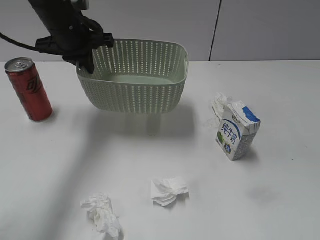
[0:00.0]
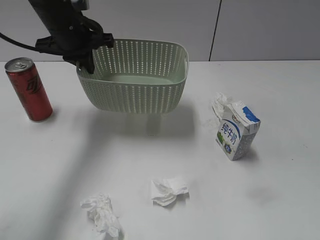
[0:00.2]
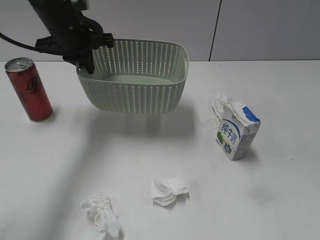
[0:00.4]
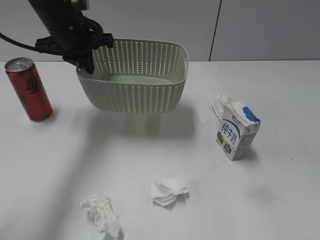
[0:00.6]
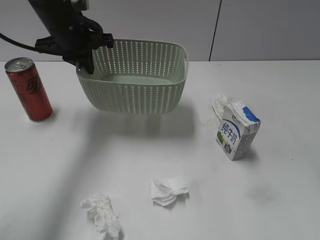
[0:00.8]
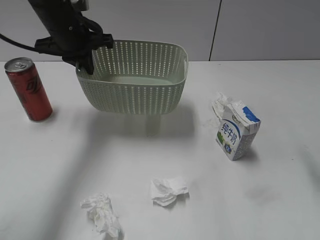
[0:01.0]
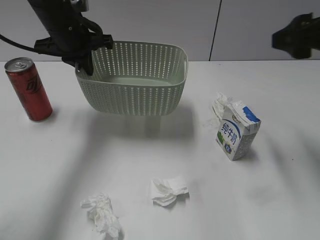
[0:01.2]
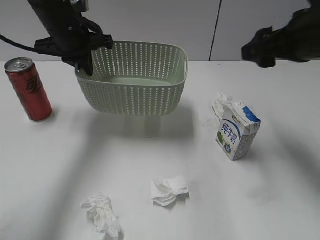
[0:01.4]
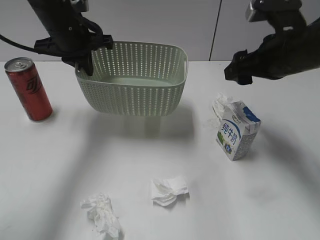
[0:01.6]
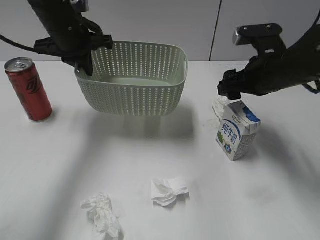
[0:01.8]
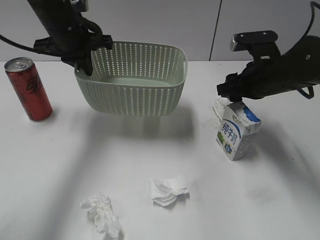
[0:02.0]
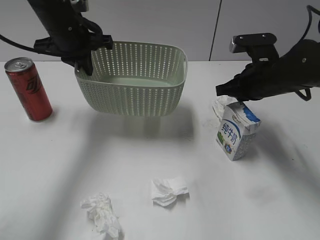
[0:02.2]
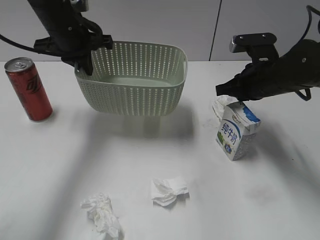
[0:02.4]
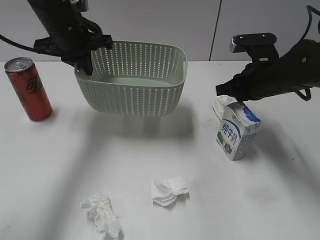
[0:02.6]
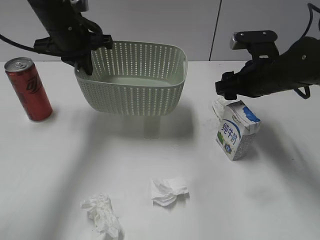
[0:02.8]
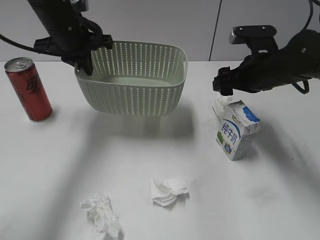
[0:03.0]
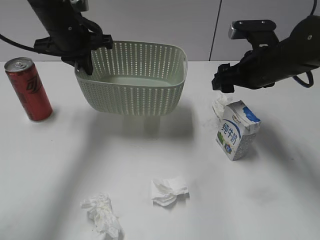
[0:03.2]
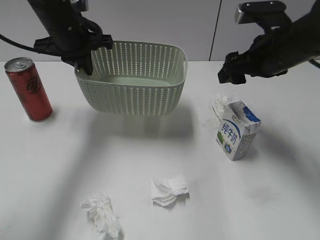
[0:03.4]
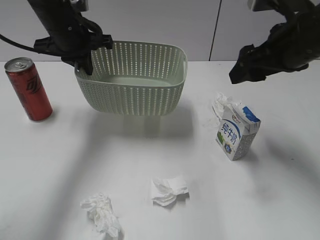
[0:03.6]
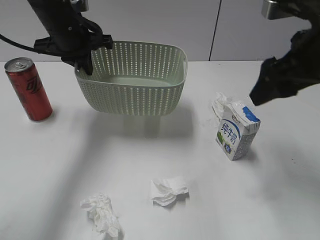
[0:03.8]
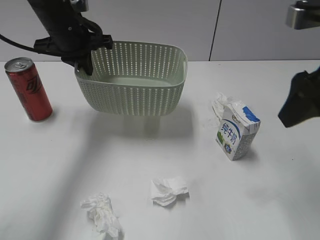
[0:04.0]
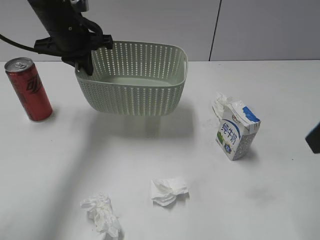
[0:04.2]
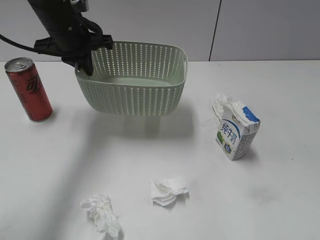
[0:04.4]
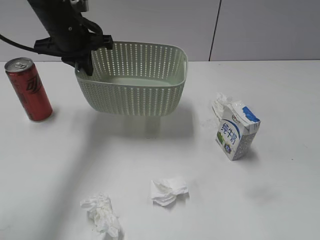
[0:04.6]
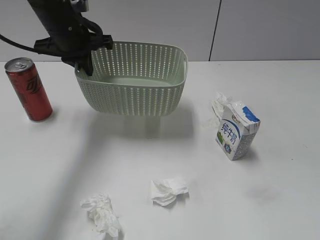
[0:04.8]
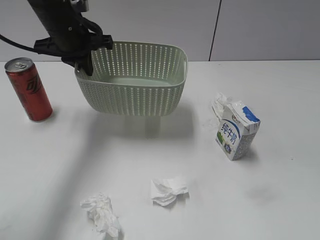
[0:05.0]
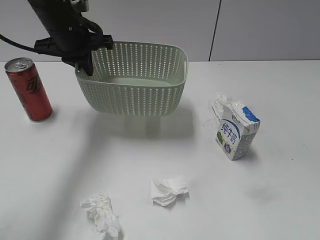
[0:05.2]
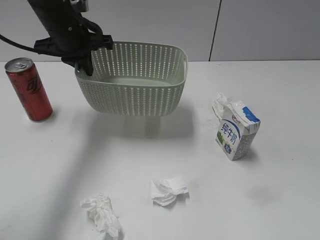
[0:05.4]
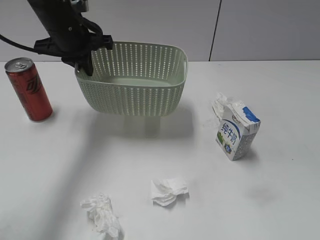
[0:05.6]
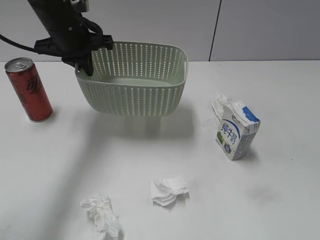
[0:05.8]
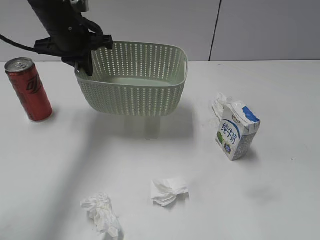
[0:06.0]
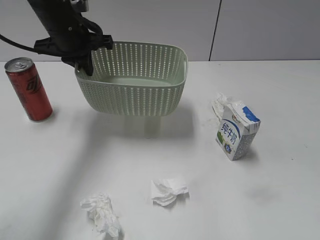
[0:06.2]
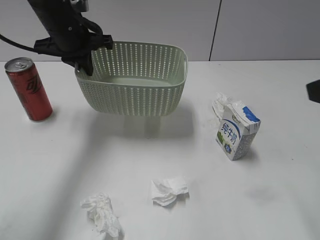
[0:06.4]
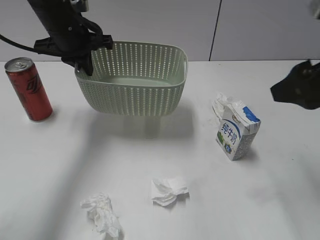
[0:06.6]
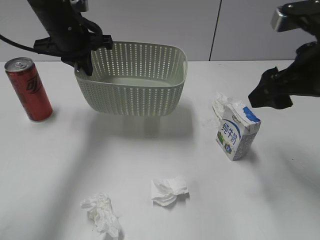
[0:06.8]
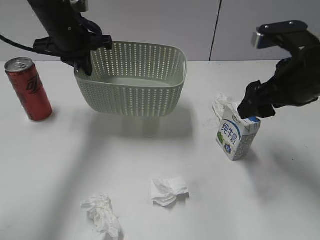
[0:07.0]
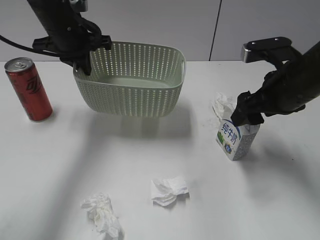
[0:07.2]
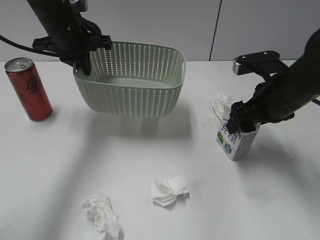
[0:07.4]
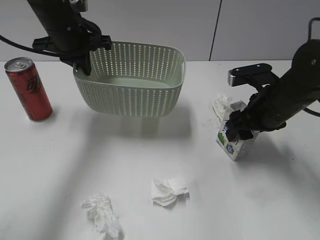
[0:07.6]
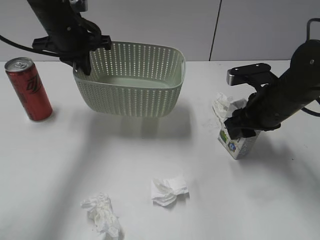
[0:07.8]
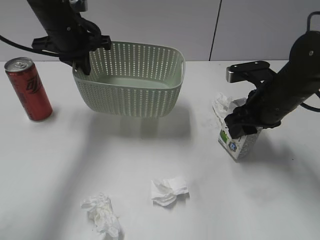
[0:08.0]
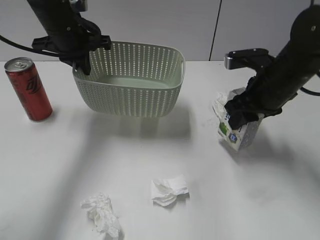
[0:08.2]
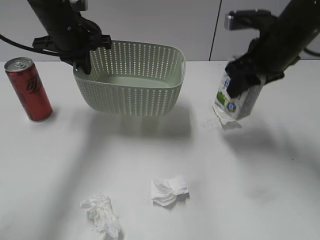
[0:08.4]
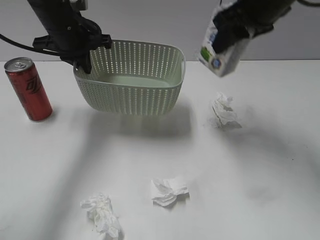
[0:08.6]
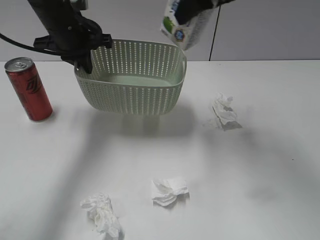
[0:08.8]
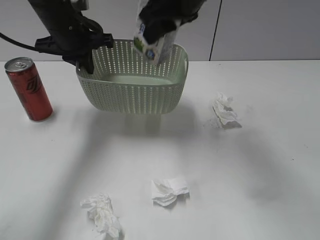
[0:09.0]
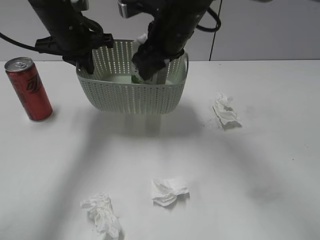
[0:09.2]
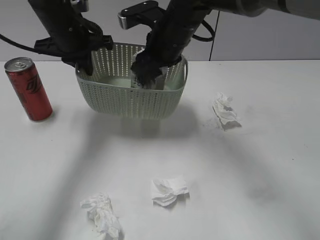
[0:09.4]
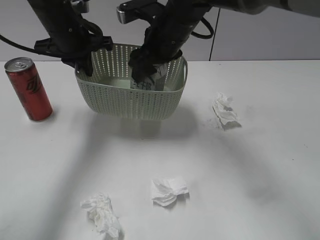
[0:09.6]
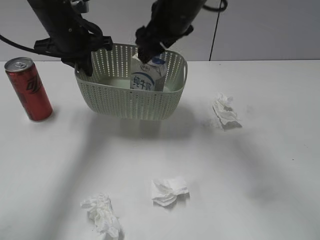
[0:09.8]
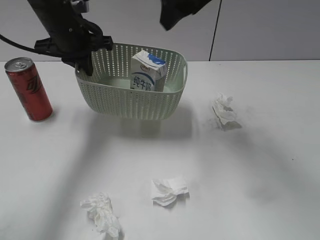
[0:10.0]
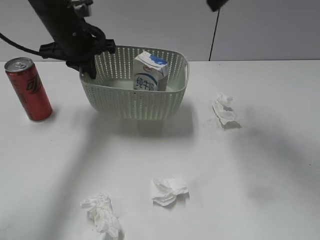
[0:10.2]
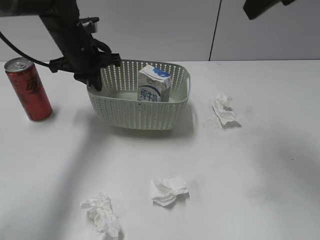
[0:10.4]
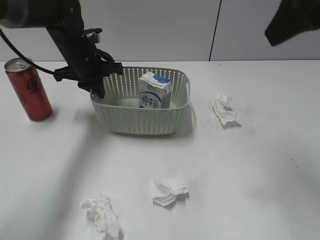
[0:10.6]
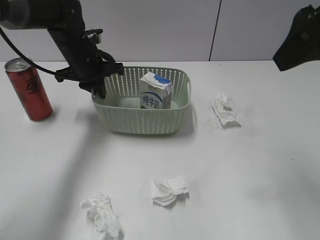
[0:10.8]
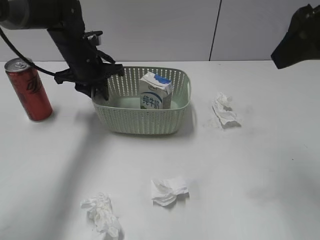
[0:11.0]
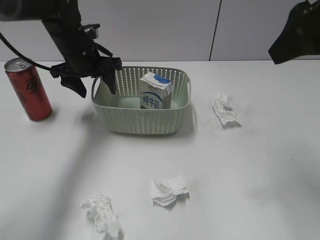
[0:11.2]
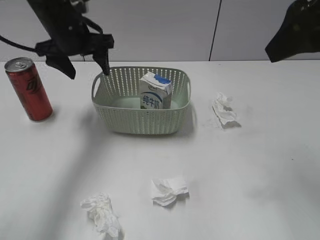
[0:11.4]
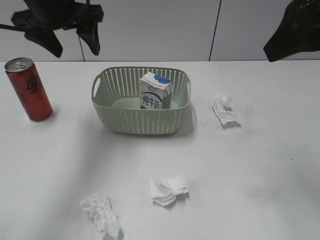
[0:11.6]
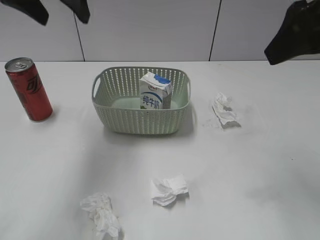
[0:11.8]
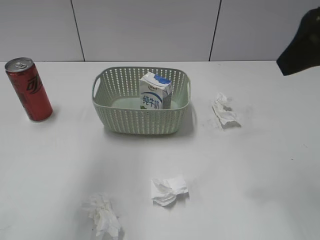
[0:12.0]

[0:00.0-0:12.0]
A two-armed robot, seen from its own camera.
Step, 0:01.2 to 0:07.8: Grasp the milk with right gripper.
Step, 0:08.0 to 0:10.0: Place the milk in the basket with right gripper.
Step, 0:10.2 to 0:11.2: Place the basket on the table with left gripper.
0:00.0 to 0:01.6: The right gripper is displaced forward by roughly 30 cm.
0:01.6 to 0:03.0: The right gripper heads downward, covering roughly 5 cm, and closes, then reopens.
0:03.0 to 0:04.4: The right gripper moves backward and upward, some 30 cm.
0:06.0 to 0:07.6: The right gripper moves forward and downward, roughly 30 cm.
0:07.6 to 0:09.0: The right gripper goes about 25 cm upward and to the left.
0:09.0 to 0:10.4: The right gripper heads to the right, upward and backward, covering approximately 15 cm, and opens.
0:10.4 to 0:12.0: The right gripper moves backward, some 10 cm, while the left gripper heads upward and backward, covering some 25 cm, and opens.

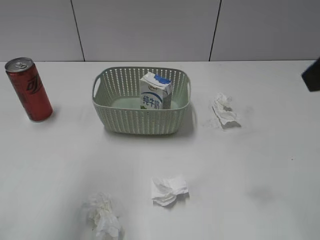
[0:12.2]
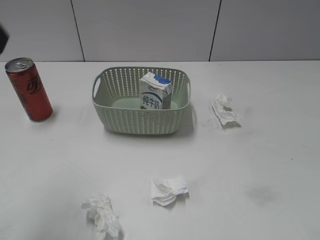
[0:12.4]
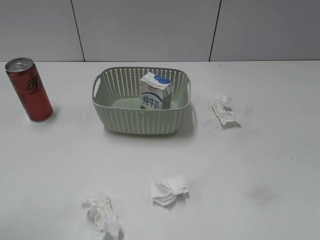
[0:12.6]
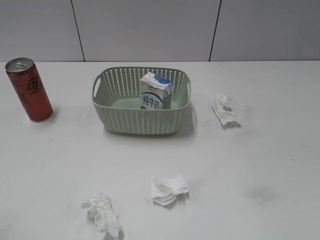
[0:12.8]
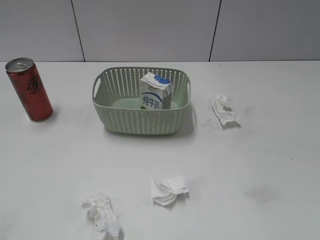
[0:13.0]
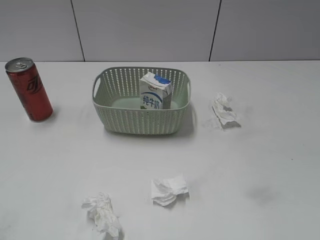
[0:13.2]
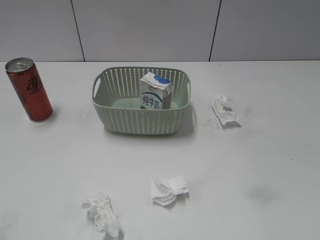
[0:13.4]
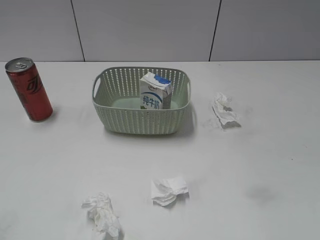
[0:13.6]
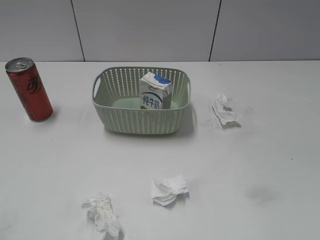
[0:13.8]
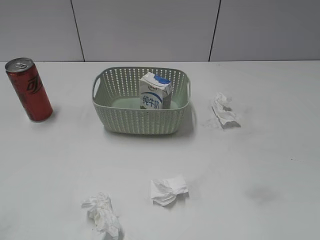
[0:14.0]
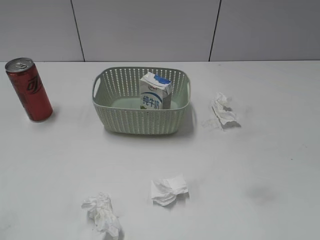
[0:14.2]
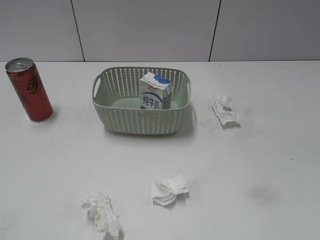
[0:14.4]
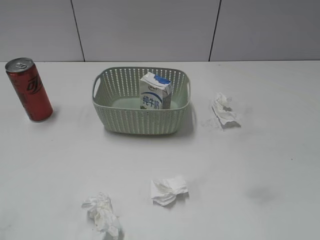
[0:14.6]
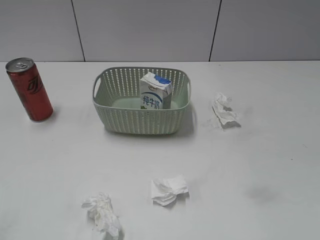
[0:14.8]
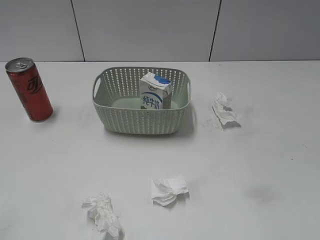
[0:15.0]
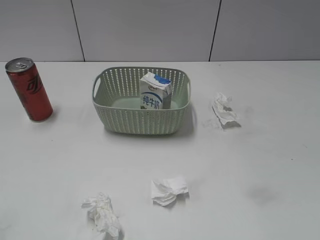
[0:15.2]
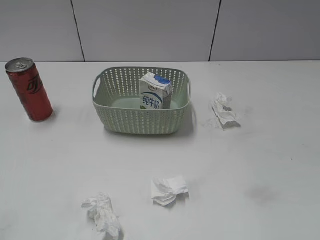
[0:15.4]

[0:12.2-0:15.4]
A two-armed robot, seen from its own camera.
0:12.2 to 0:13.8: The left gripper moves backward, downward and to the left, some 25 cm. Meanwhile the right gripper moves backward, downward and to the right, some 20 cm.

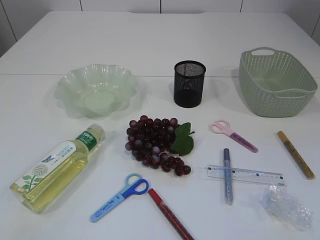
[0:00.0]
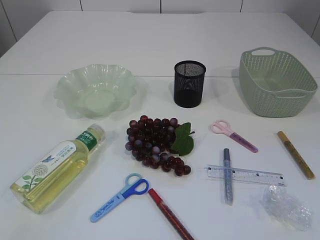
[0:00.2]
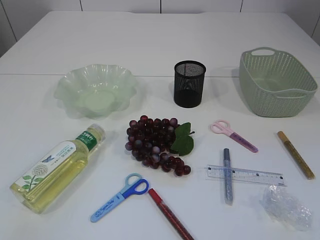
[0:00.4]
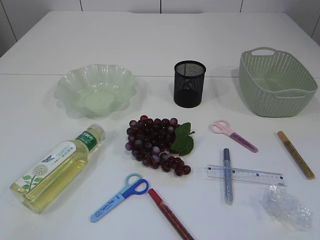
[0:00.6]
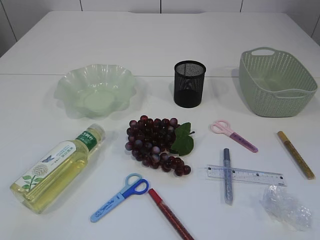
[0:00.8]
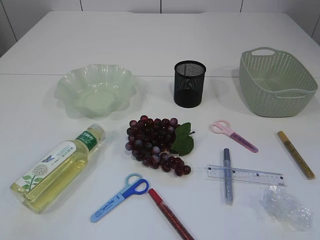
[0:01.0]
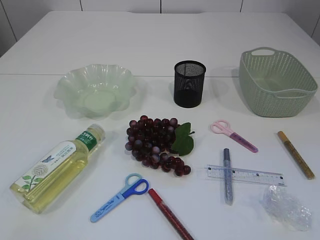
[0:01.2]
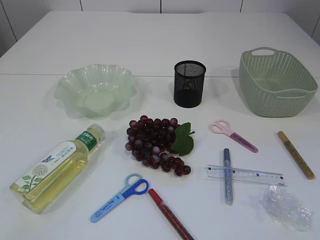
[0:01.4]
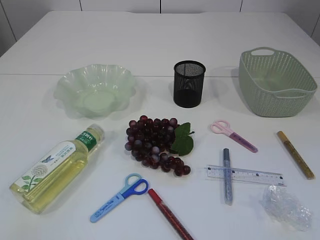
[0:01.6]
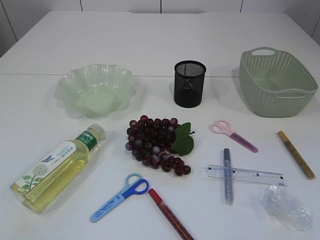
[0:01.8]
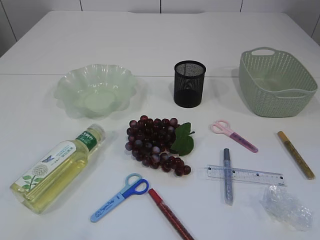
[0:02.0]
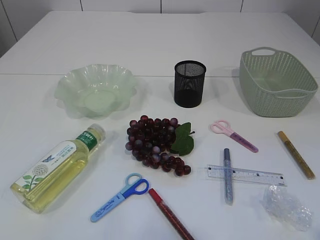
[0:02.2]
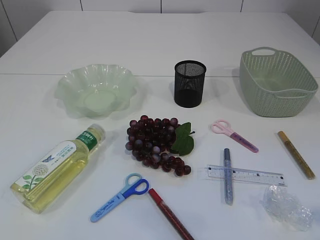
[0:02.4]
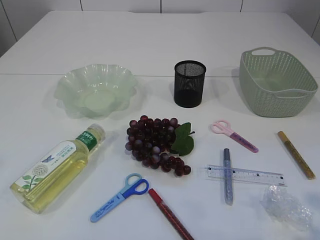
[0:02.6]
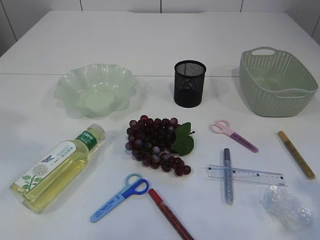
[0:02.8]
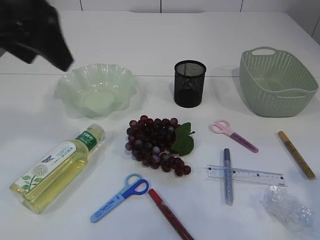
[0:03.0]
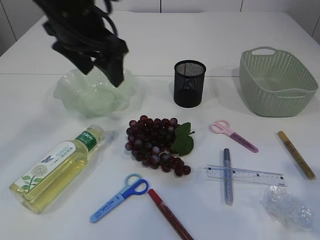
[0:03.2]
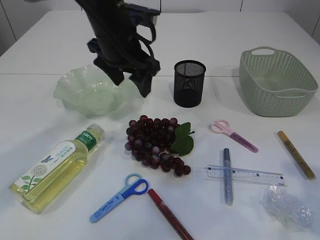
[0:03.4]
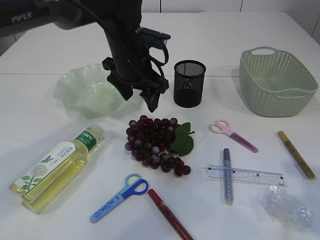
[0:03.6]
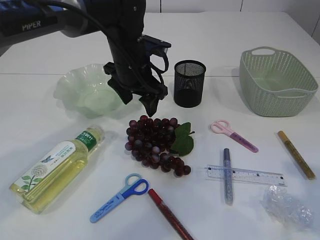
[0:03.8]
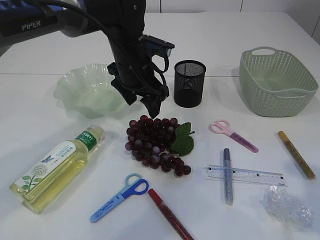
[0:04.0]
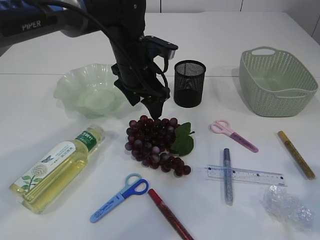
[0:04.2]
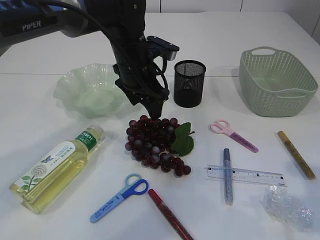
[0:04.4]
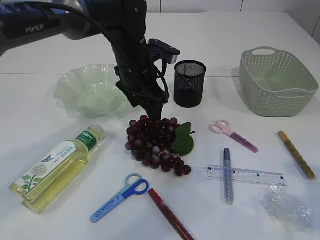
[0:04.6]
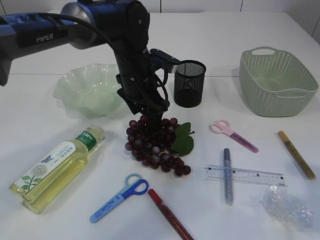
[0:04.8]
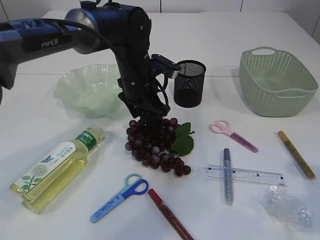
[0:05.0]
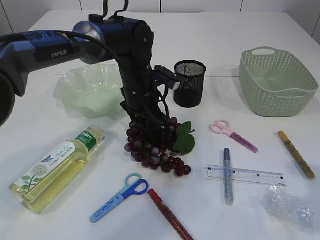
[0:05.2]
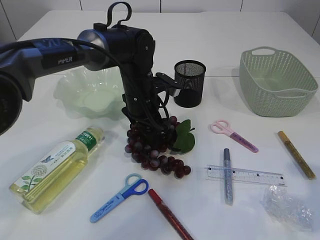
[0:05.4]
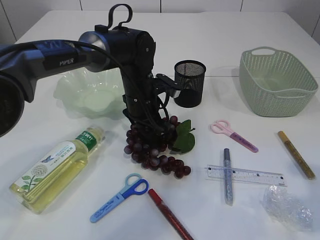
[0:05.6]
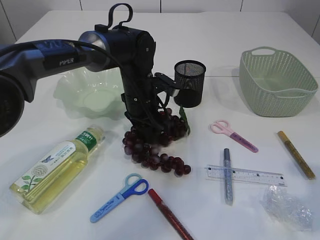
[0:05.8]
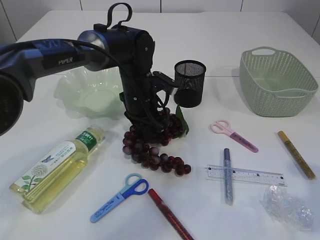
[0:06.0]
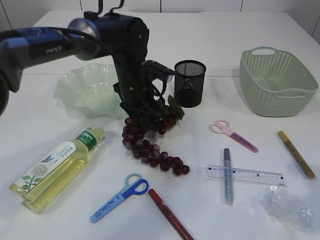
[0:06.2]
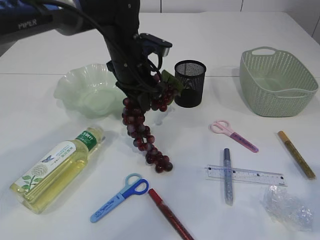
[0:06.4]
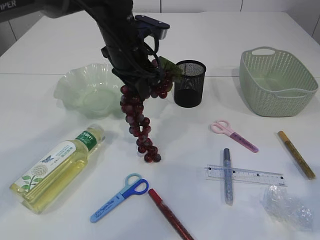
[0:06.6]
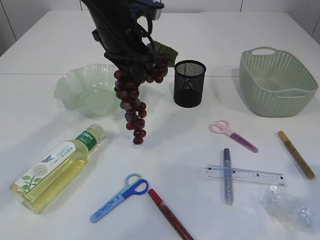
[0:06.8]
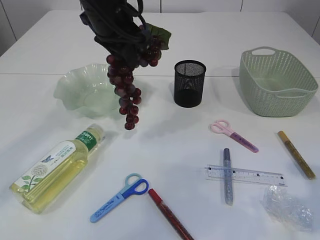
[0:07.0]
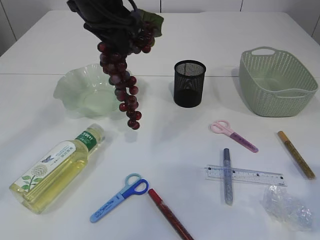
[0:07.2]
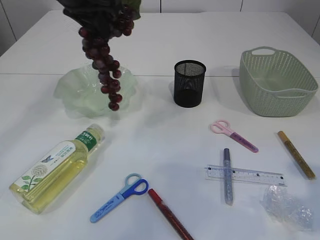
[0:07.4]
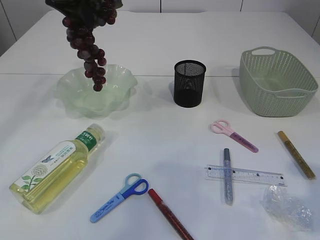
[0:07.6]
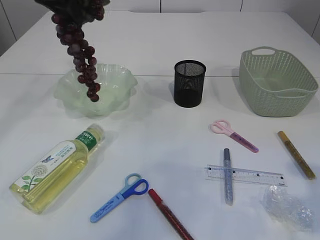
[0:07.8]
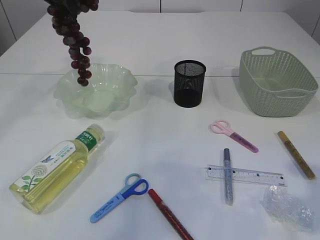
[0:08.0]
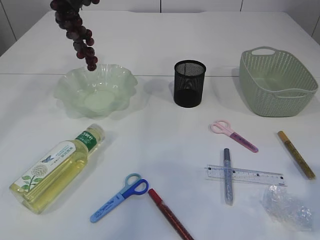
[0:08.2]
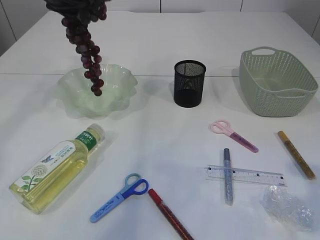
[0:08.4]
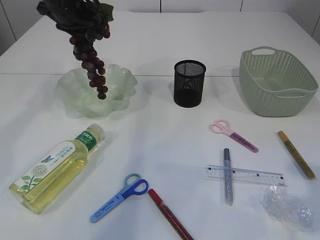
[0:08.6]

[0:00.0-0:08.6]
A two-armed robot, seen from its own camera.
Step, 0:00.0 to 0:07.0: Pick up the grapes.
0:01.4 to 0:02.8: The right gripper moves forward, about 10 cm.
0:02.8 to 0:04.4: The left gripper heads forward, downward and to the right, covering approximately 35 cm.
0:04.4 to 0:05.8: The left gripper moves downward, approximately 10 cm, and closes its fingers.
0:05.8 to 0:07.2: The left gripper travels upward by about 20 cm.
0:07.2 to 0:08.6: The left gripper goes approximately 10 cm forward and to the left.
